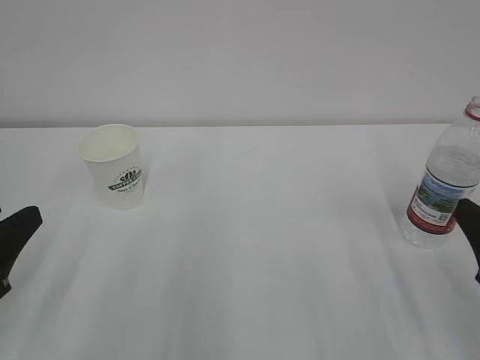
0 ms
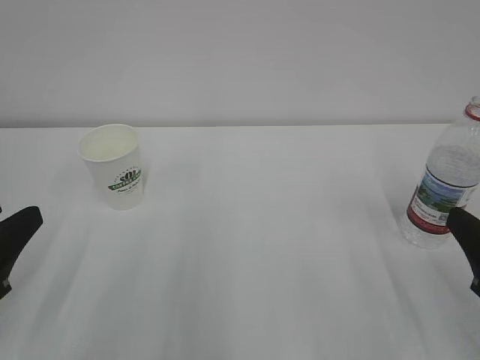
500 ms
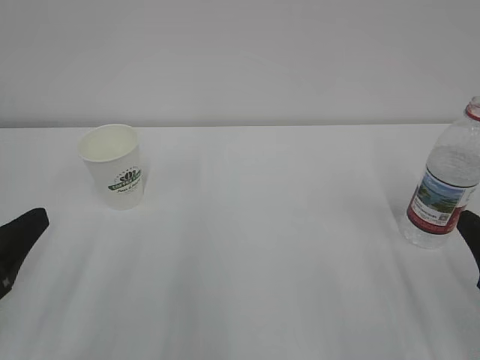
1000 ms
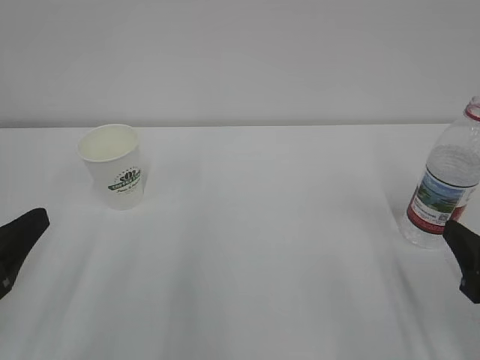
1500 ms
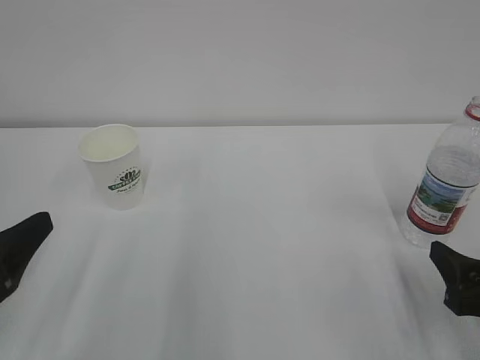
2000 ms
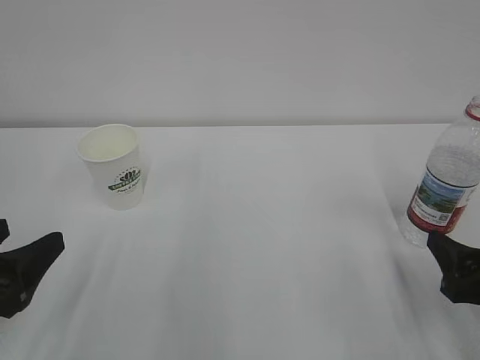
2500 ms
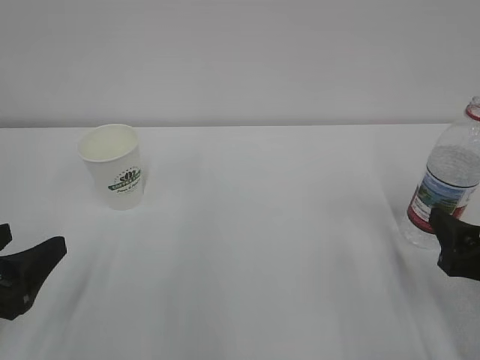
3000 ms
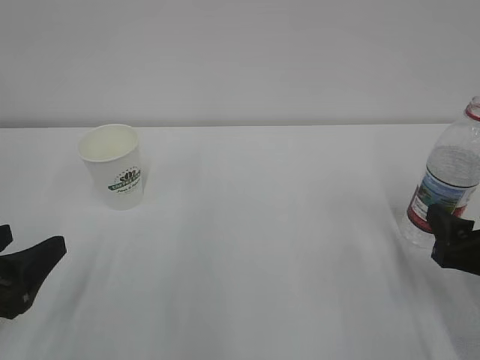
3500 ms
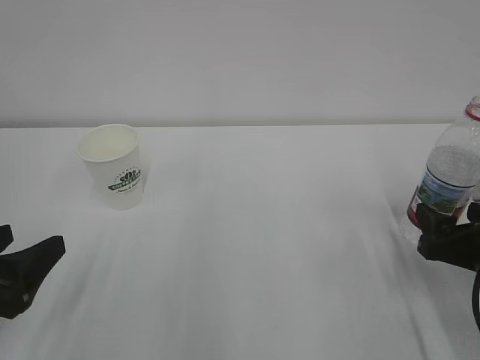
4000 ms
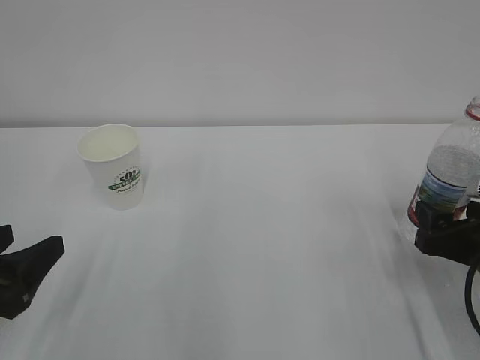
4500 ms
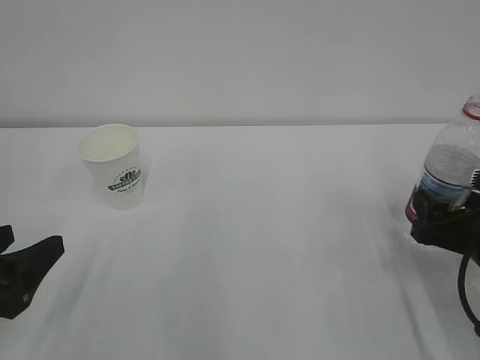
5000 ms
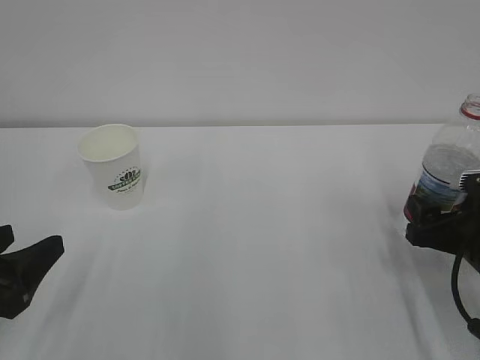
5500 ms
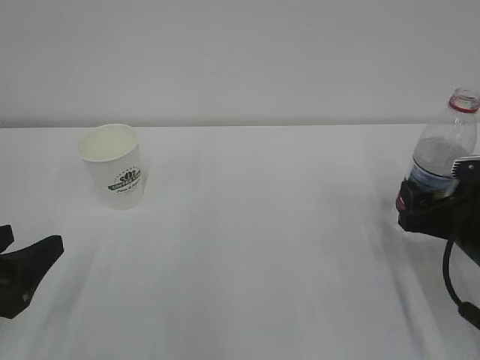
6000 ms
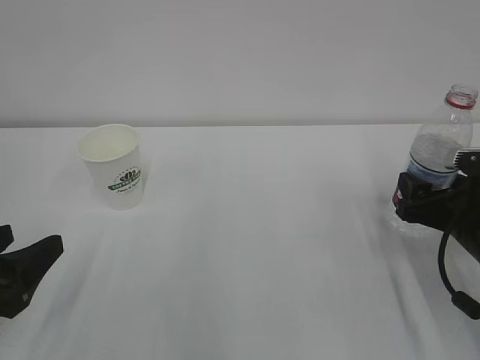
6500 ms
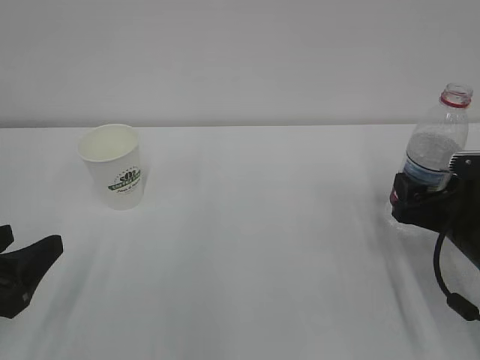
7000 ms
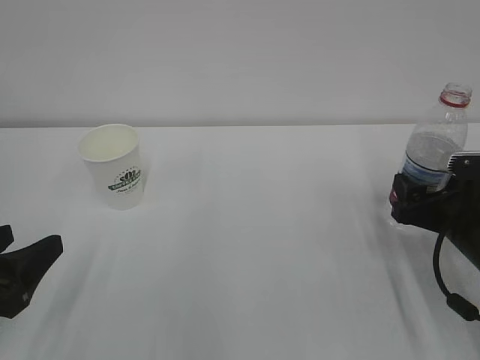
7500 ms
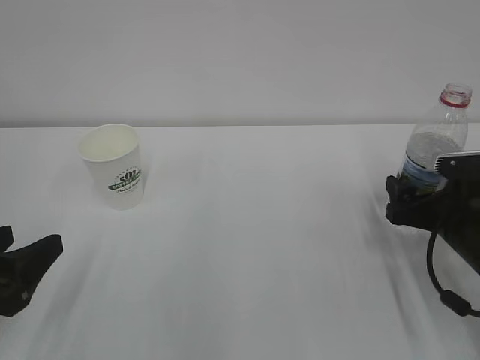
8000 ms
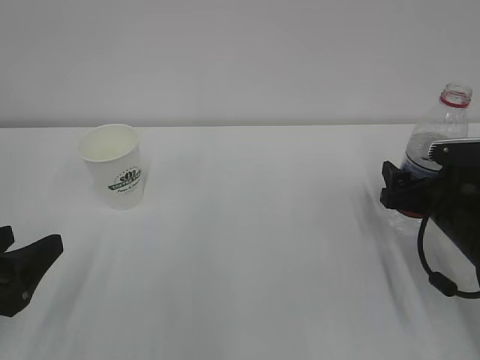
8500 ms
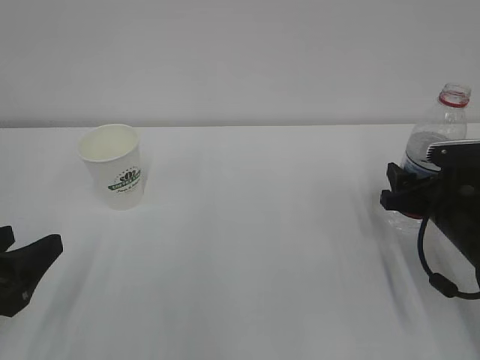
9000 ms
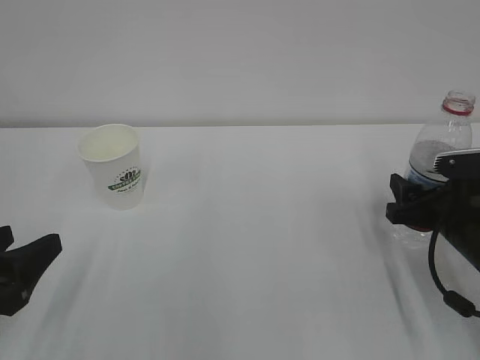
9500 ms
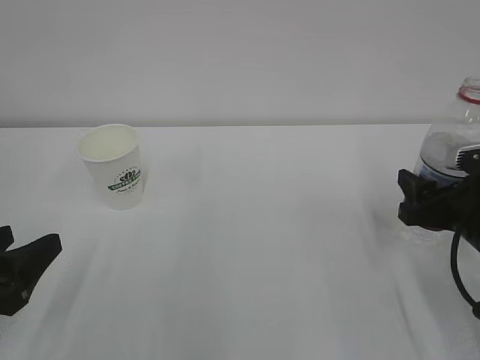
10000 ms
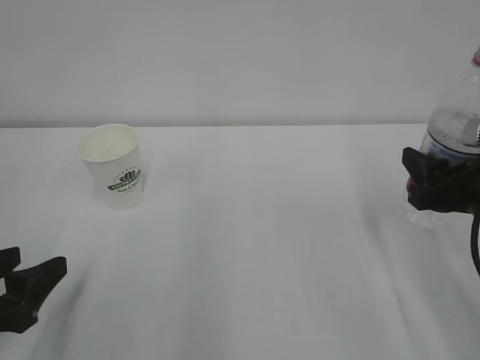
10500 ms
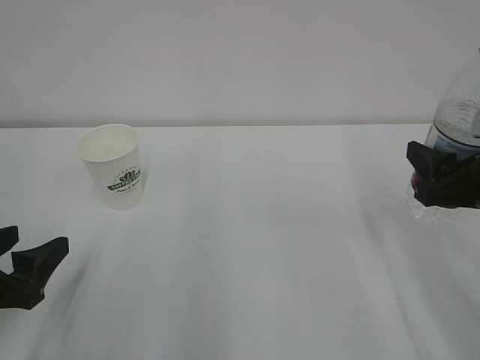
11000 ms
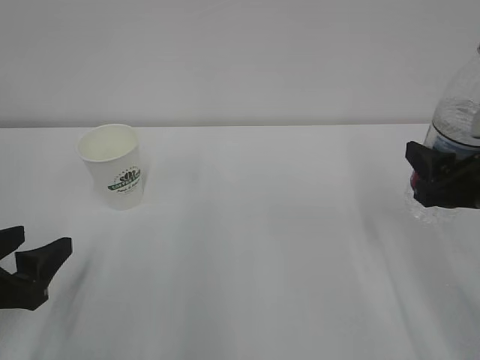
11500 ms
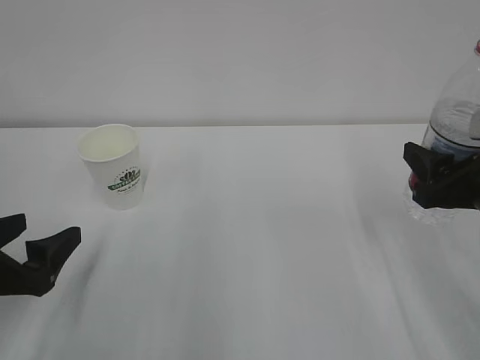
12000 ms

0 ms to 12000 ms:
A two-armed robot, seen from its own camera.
0 ms to 2000 ms: The left gripper opens its fingers, while the right gripper shifts approximately 5 cm downward.
2000 ms to 4000 ms: The right gripper goes about 5 cm forward.
4000 ms to 6000 ms: There are only small adjustments of the grippers.
6000 ms to 8000 ms: The right gripper opens its fingers.
8000 ms to 10000 ms: The right gripper closes up.
10000 ms to 12000 ms: The right gripper is displaced upward by roughly 5 cm. The left gripper opens its fingers.

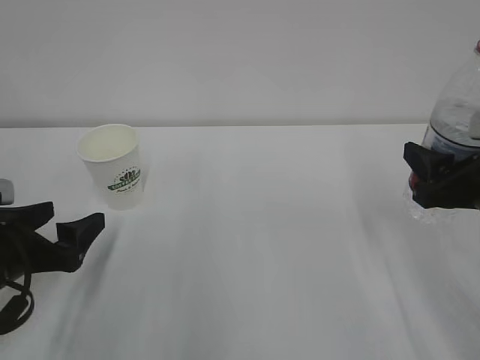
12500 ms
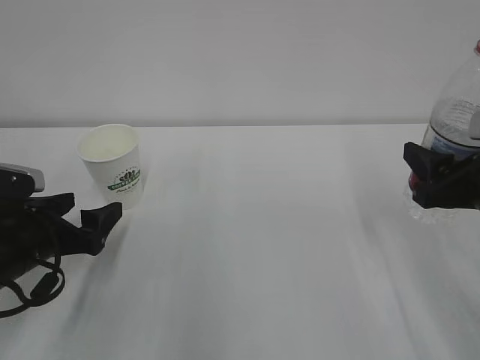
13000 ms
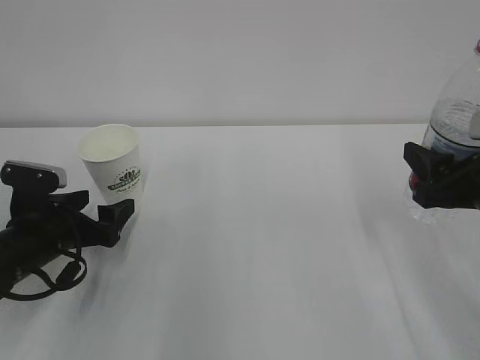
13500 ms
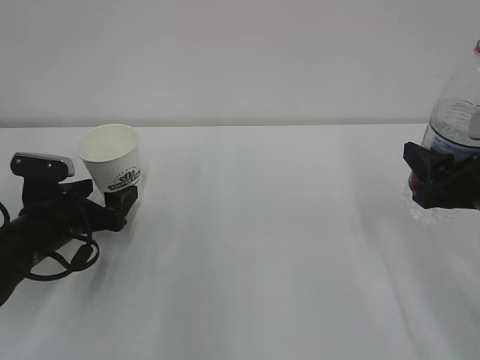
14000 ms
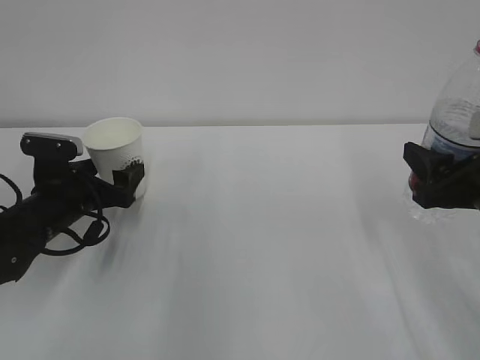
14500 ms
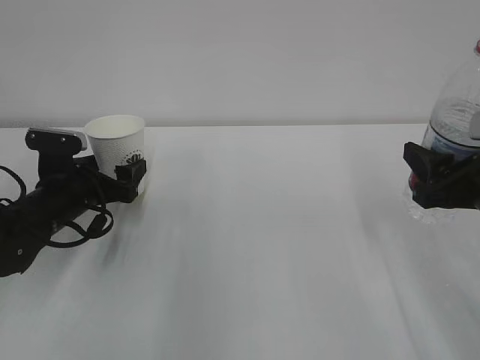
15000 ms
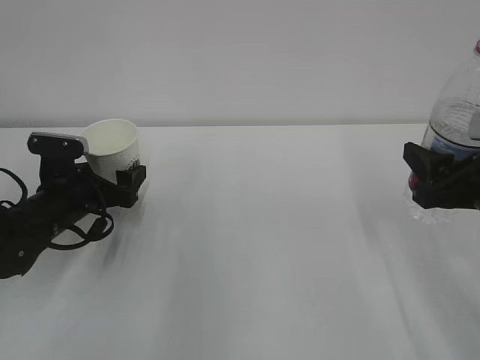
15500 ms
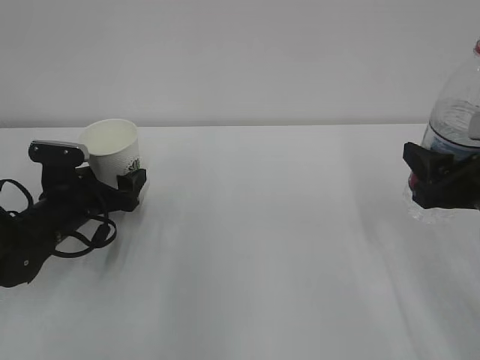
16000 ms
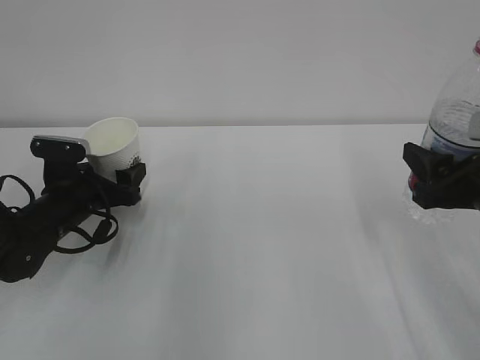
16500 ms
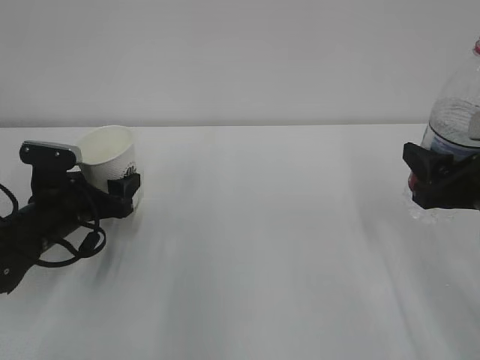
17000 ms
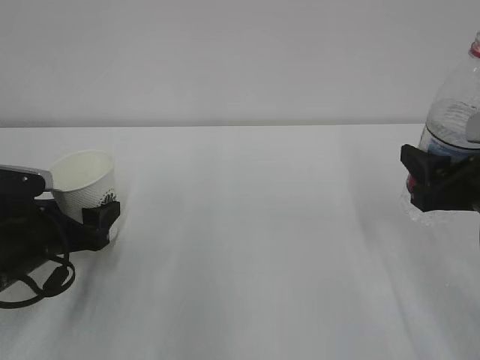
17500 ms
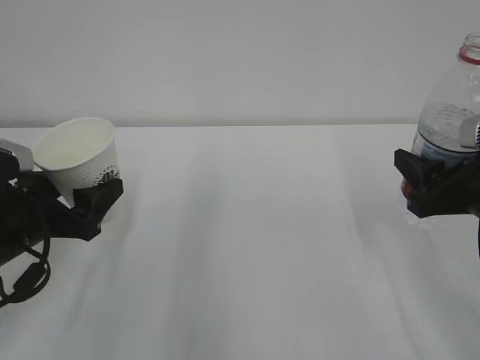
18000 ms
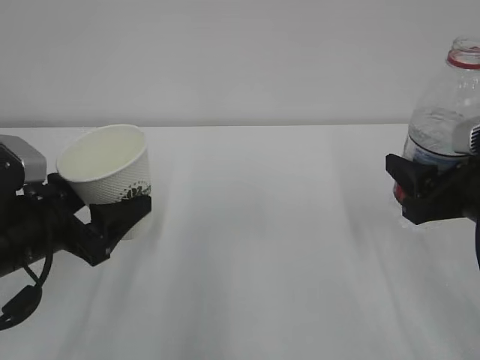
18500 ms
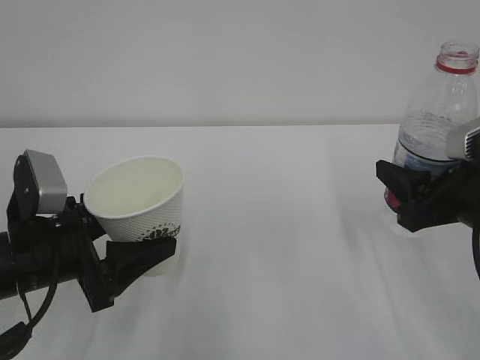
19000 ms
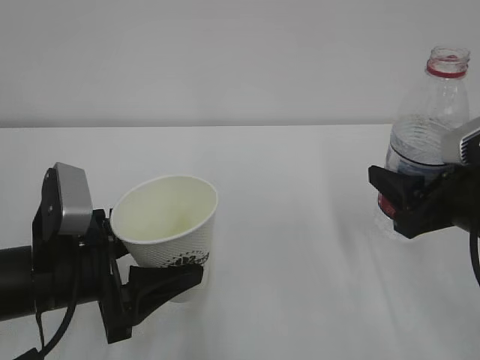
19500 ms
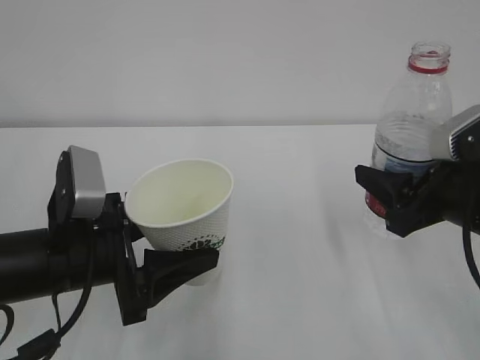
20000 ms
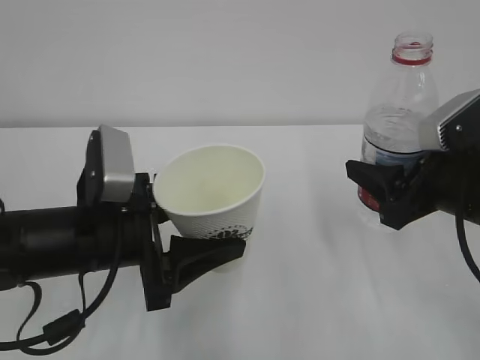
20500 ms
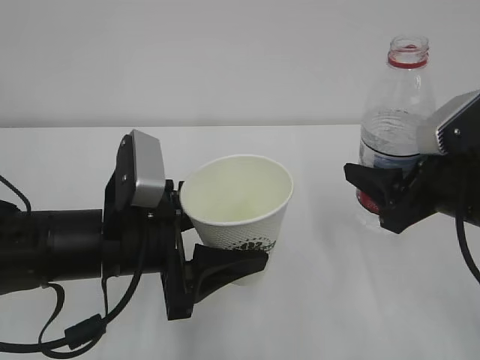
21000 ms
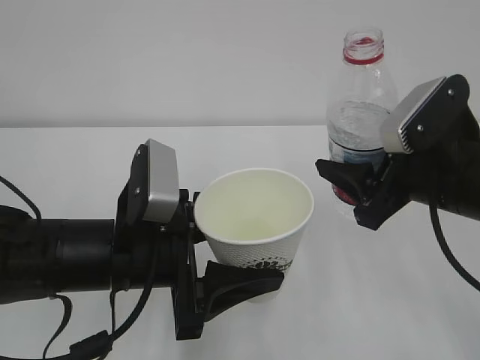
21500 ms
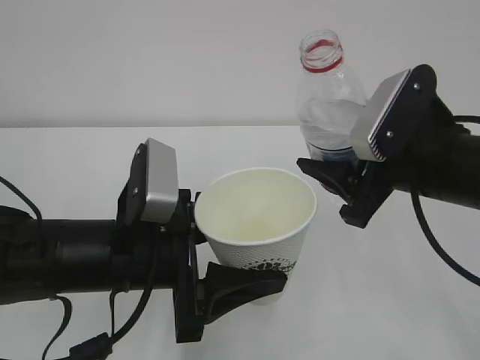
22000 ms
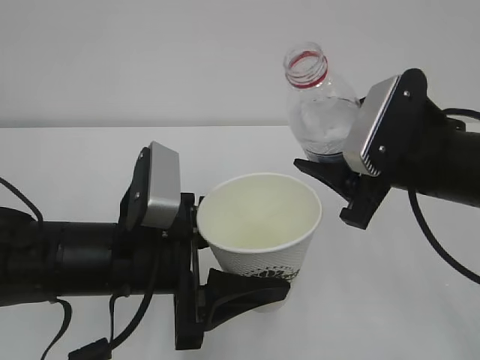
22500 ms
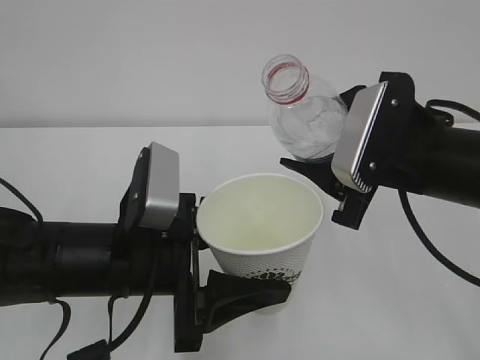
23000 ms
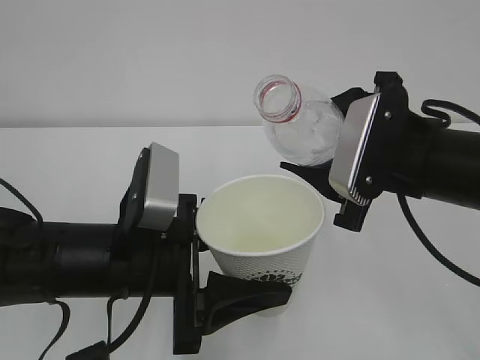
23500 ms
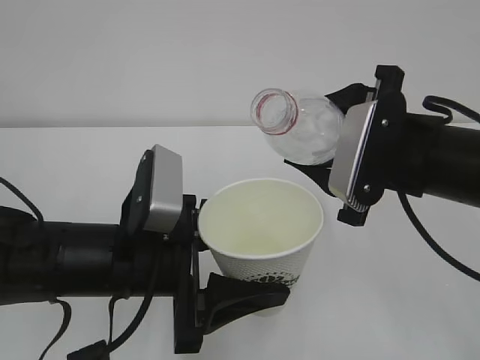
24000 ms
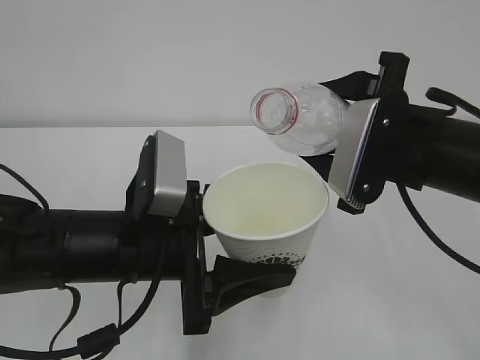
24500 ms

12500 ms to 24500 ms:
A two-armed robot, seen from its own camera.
12500 ms to 14500 ms: The left gripper travels forward by roughly 10 cm.
14500 ms to 16500 ms: The left gripper closes.
16500 ms to 18500 ms: The left gripper shifts approximately 15 cm backward and upward.
18500 ms to 20500 ms: The left gripper moves to the right, some 10 cm.
20500 ms to 22500 ms: The right gripper shifts about 5 cm to the left.

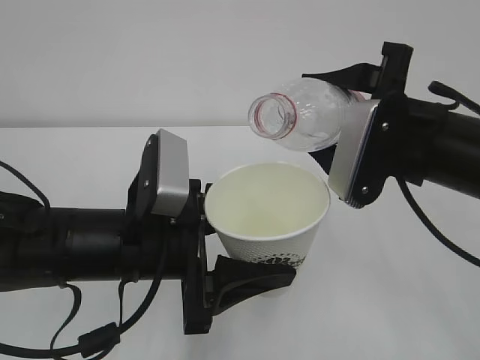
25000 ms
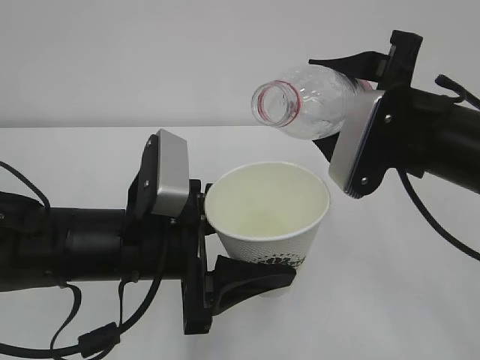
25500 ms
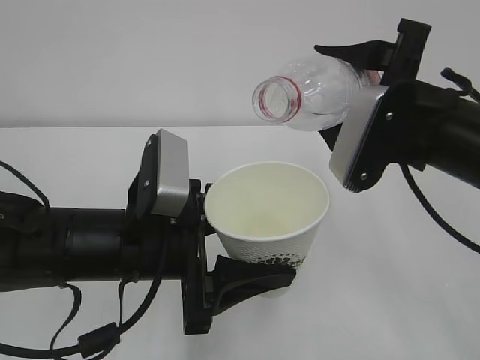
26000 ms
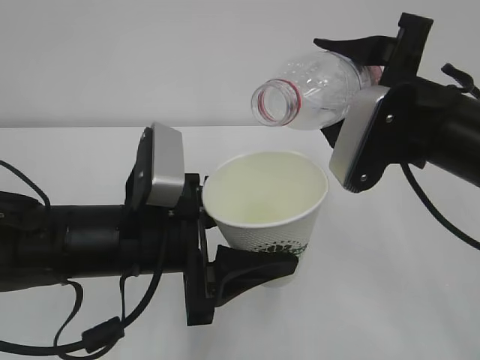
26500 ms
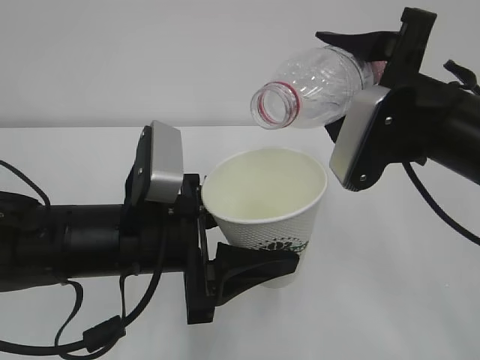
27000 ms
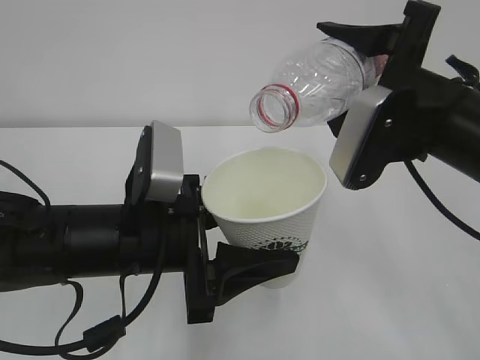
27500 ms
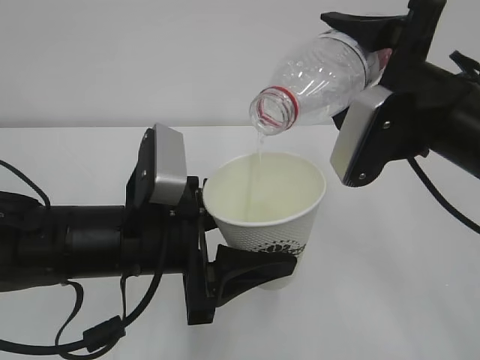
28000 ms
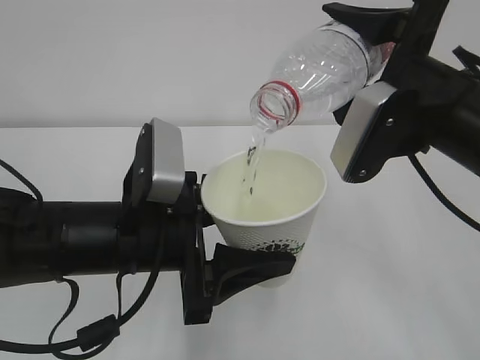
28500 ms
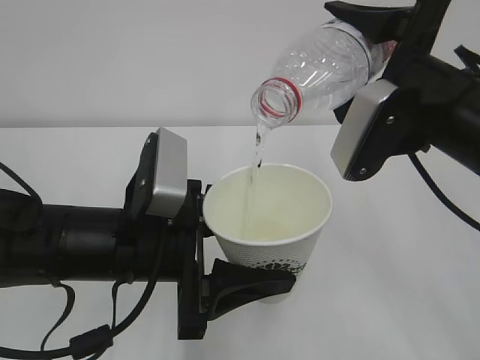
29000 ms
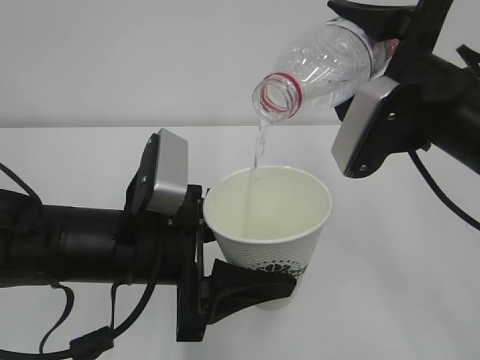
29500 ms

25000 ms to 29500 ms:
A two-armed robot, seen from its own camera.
25000 ms to 27000 ms: The grippers stay close to where they were, moving slightly.
27000 ms to 29500 ms: The grippers make only small movements.
